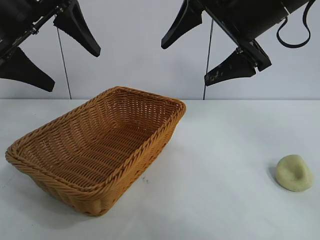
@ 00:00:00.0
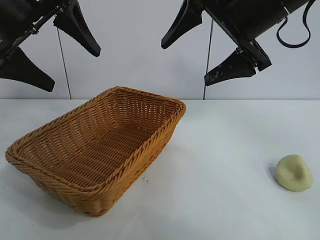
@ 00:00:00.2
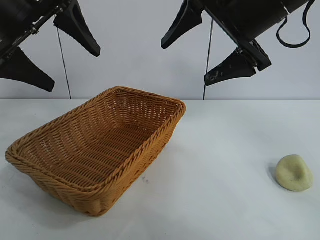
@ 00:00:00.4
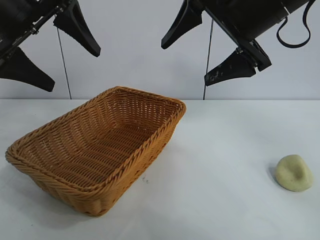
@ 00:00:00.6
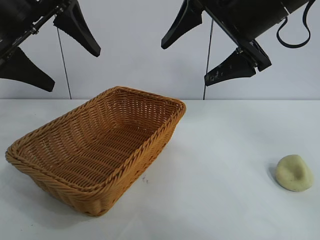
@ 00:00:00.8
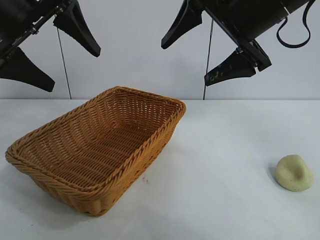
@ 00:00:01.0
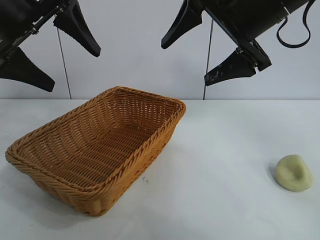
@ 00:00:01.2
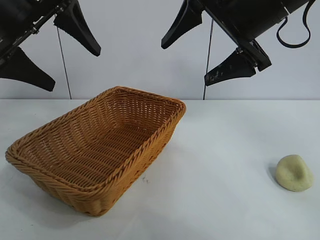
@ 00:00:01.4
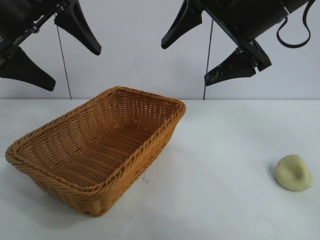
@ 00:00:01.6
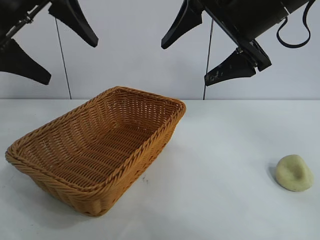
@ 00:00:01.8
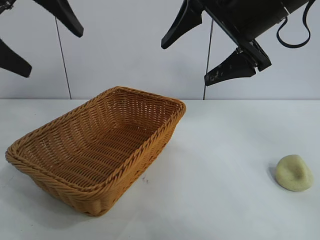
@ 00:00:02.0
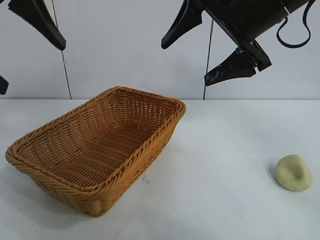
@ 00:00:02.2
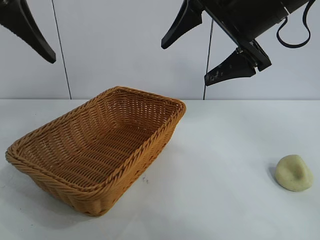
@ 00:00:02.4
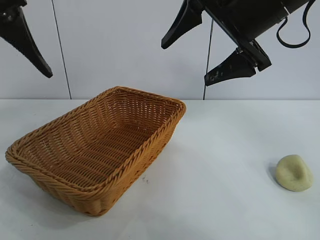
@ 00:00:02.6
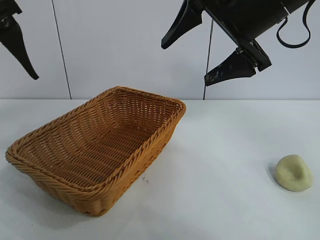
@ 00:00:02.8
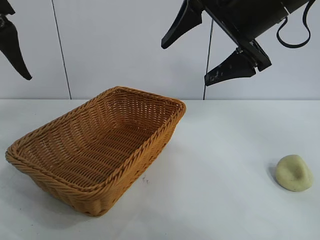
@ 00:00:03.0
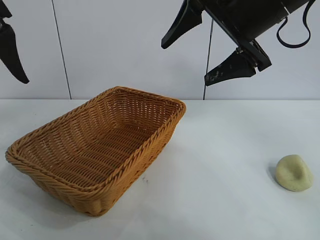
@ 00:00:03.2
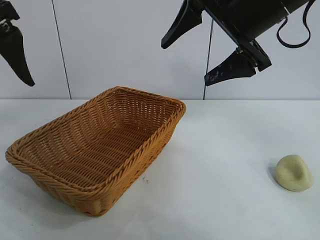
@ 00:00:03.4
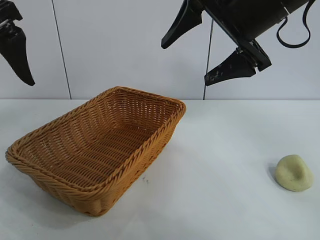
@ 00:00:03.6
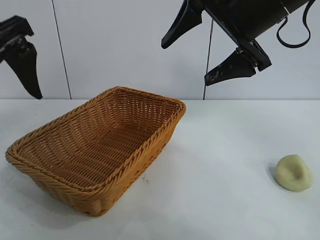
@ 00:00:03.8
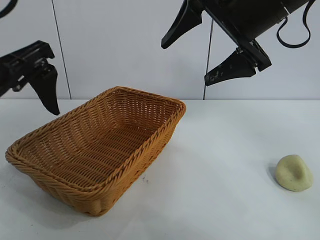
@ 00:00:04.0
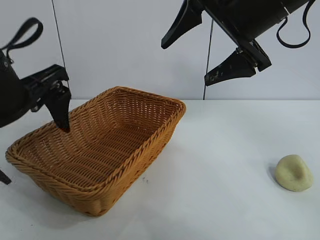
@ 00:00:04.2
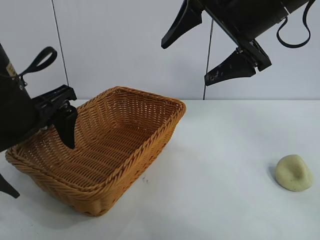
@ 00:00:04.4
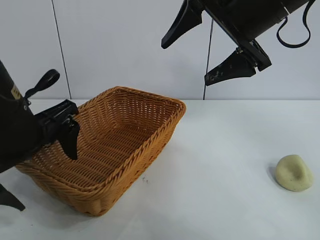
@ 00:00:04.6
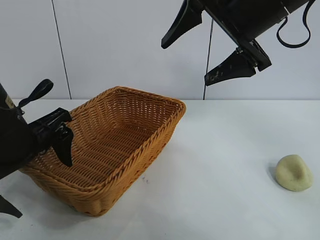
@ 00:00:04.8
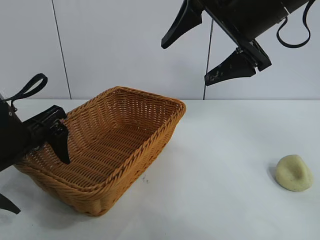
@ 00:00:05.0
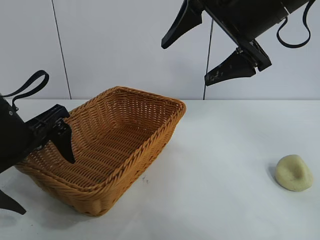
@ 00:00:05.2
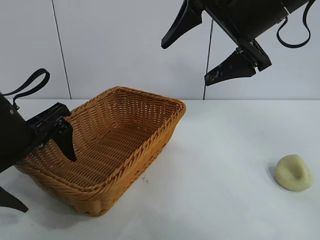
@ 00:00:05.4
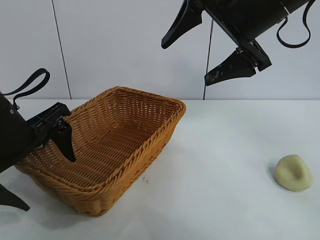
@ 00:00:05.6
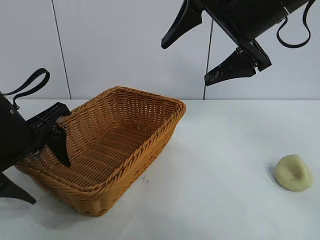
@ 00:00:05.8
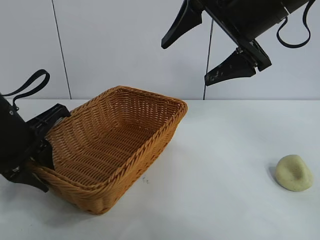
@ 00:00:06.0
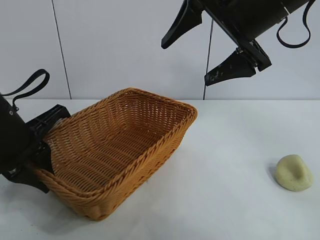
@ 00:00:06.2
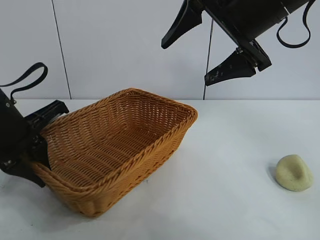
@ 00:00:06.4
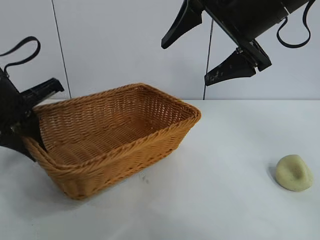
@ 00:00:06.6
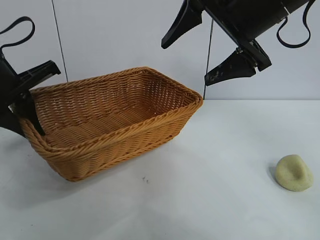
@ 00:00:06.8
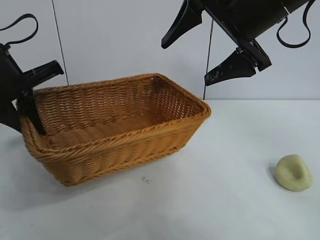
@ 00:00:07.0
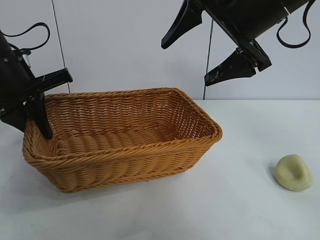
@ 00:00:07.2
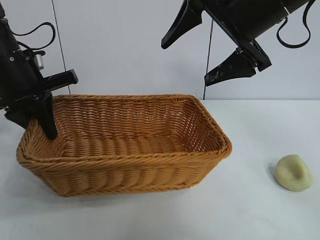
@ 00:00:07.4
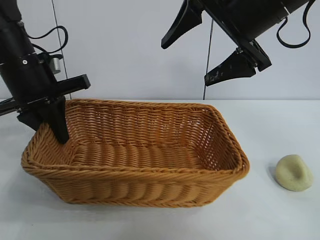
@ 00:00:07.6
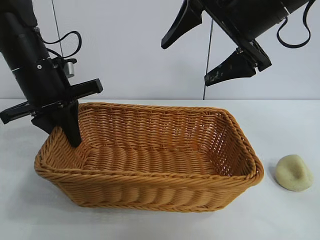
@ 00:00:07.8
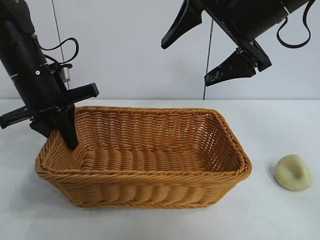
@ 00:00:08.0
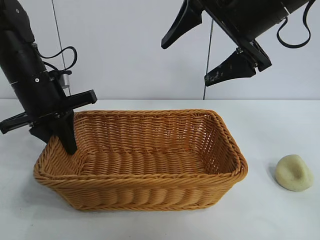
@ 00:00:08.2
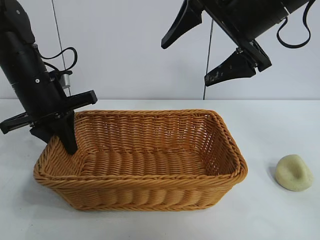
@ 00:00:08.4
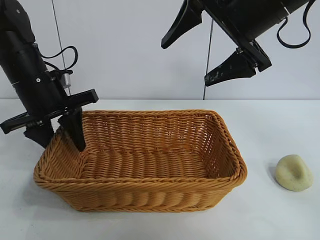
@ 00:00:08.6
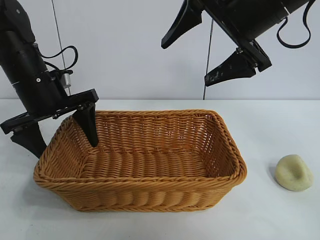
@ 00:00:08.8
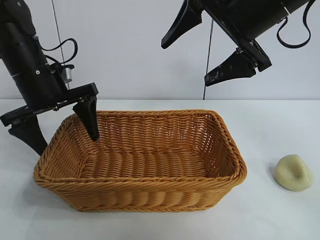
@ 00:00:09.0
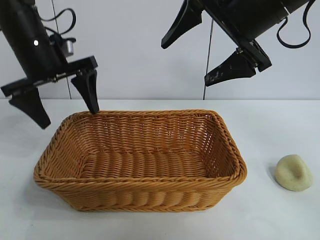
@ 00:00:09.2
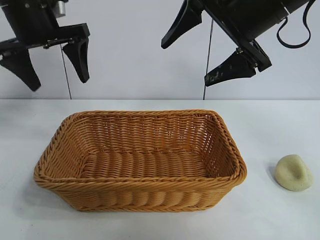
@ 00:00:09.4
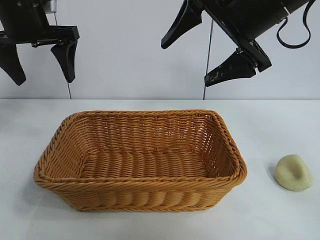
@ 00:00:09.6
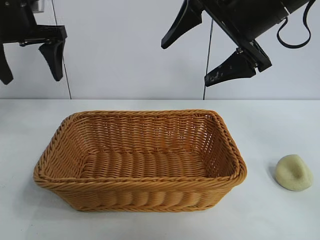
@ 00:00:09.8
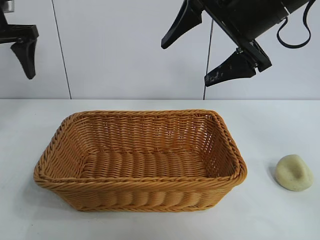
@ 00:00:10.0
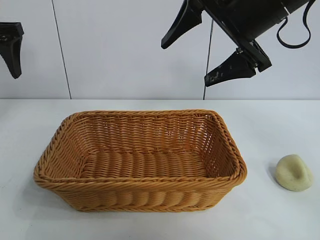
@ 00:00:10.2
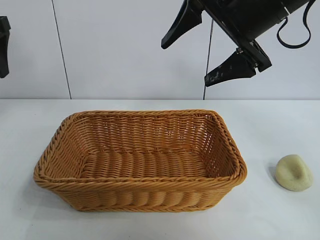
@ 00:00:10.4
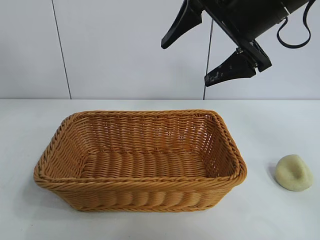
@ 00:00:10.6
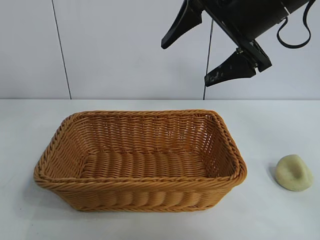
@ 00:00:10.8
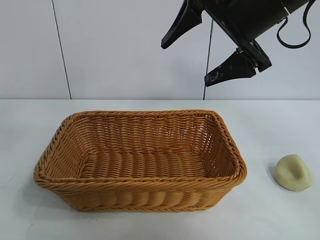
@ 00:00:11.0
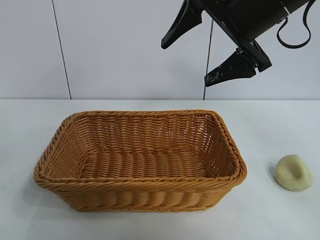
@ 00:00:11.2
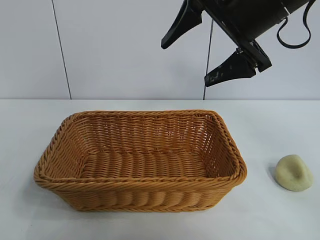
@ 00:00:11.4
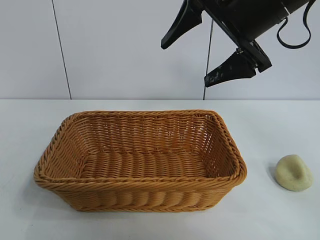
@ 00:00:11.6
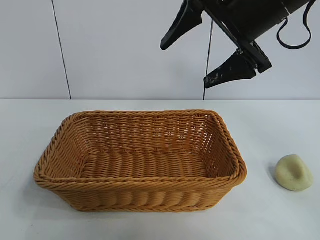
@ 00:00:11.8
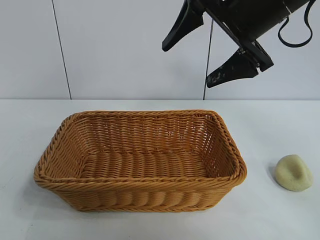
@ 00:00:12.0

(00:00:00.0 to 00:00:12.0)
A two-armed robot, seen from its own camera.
Task of the whole recording: pick up the egg yolk pastry and put it into the basket.
Step, 00:00:01.4 - 00:00:06.0: Grasp the basket with left gripper.
Step, 00:00:06.2 - 00:00:08.6: Place the basket in the center of view with left gripper.

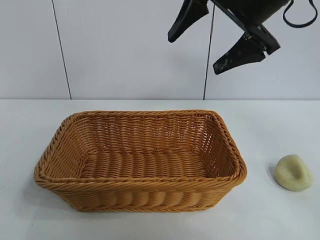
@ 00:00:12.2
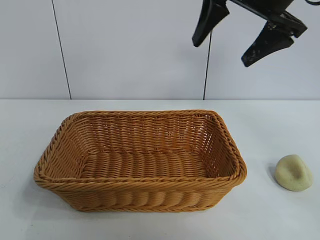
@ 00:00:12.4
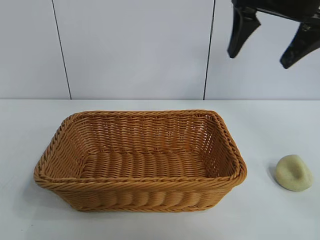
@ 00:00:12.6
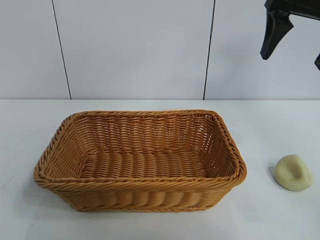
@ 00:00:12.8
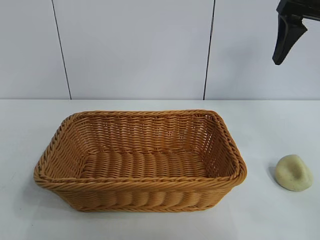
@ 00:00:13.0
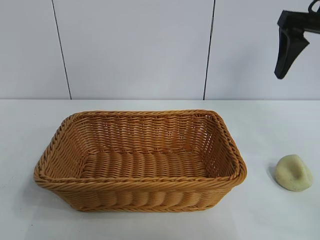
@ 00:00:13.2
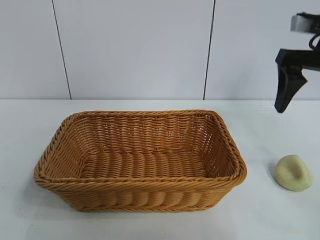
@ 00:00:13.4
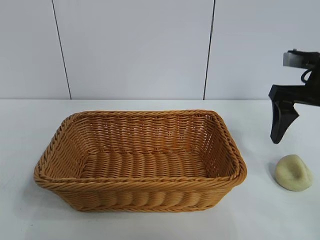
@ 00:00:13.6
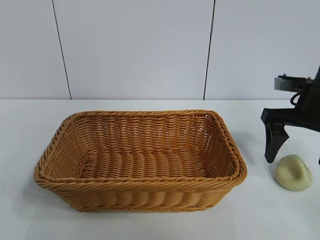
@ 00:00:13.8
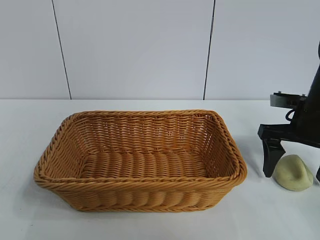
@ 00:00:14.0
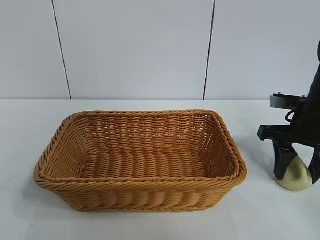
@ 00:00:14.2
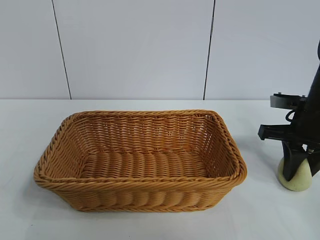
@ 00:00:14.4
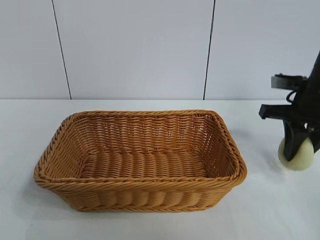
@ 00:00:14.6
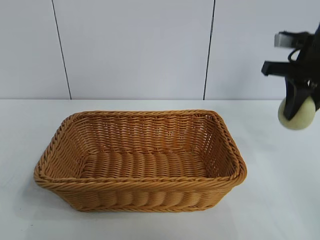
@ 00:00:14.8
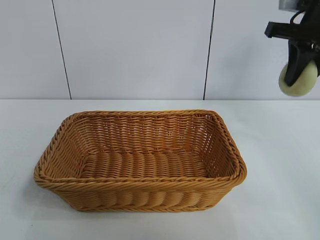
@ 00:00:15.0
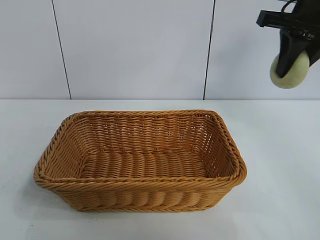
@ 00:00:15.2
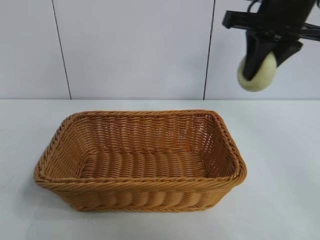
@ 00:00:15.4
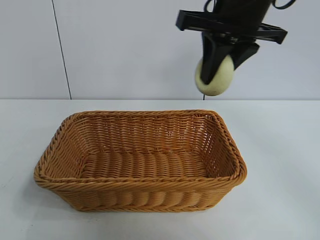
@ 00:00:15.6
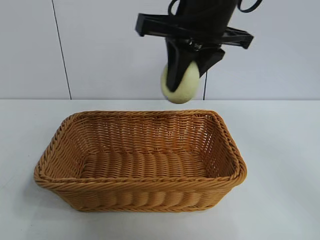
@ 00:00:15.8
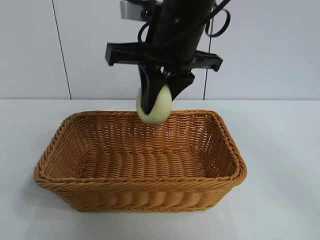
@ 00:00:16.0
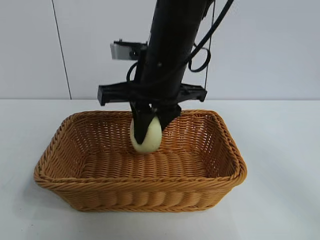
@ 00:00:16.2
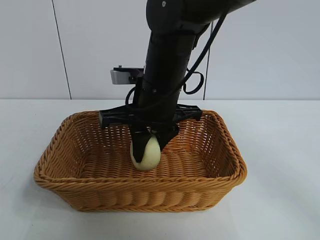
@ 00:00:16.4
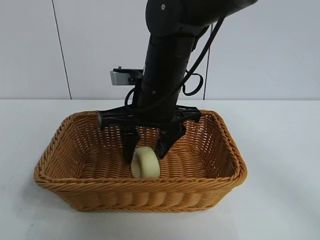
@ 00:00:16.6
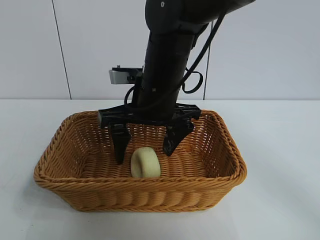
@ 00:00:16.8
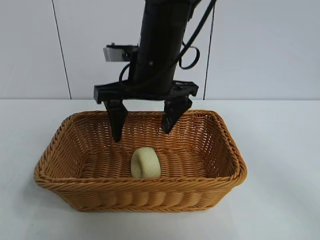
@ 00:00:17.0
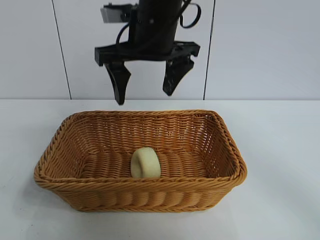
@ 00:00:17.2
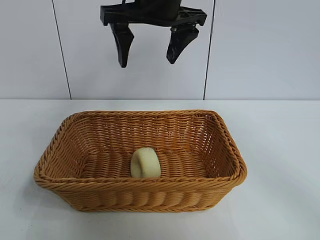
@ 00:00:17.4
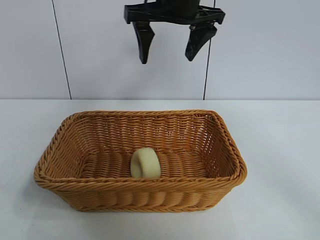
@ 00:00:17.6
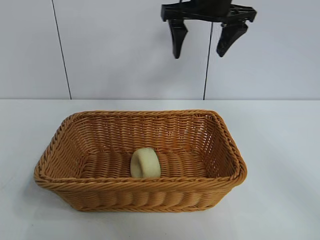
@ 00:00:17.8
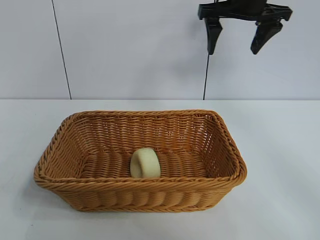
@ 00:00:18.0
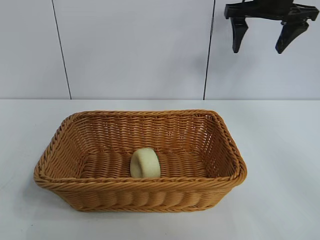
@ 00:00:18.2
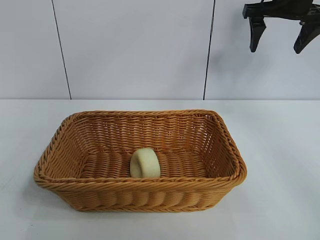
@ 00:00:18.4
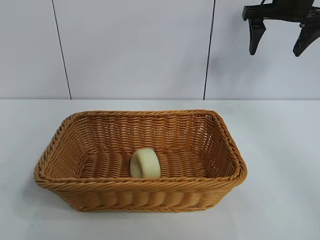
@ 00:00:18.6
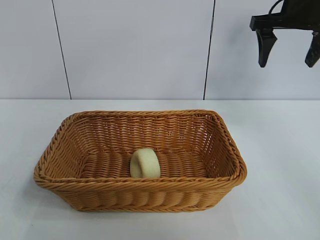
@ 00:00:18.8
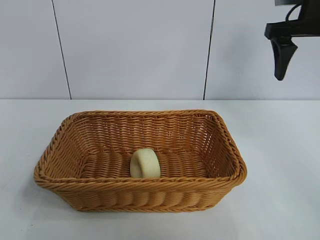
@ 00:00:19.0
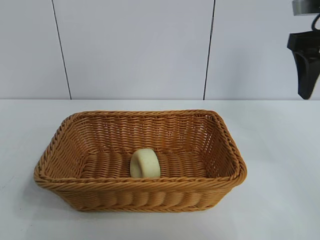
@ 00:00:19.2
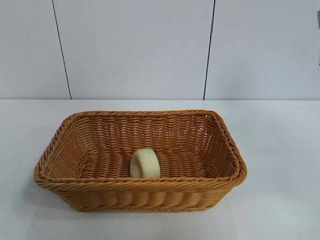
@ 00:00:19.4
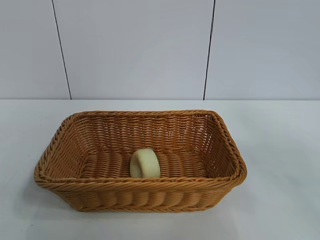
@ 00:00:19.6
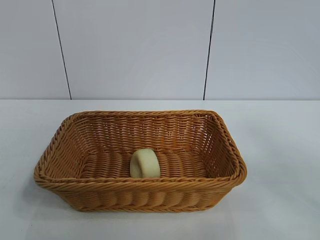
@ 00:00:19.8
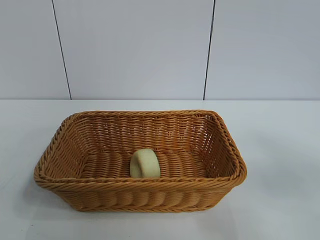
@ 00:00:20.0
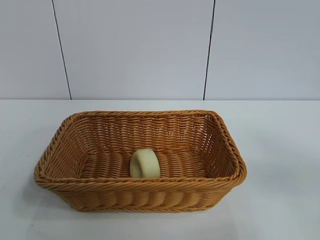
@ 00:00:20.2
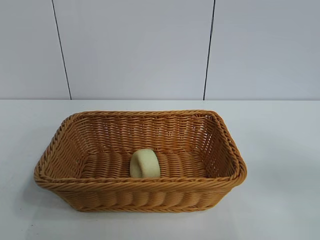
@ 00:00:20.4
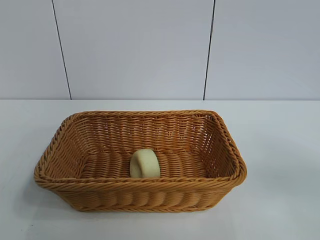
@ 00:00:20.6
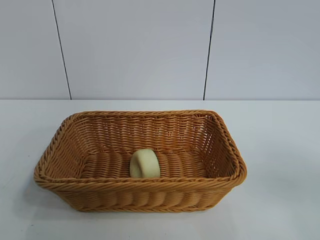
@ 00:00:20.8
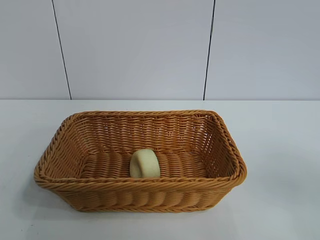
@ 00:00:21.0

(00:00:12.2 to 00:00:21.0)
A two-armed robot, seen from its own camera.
Task of the whole recording: pick up the egg yolk pastry and put it into the basket.
Step, 00:00:12.2 - 00:00:14.4: Grasp egg yolk pastry with right gripper.
Step, 00:00:14.6 - 00:00:16.6: Place the egg yolk pastry in the basket with right gripper.
